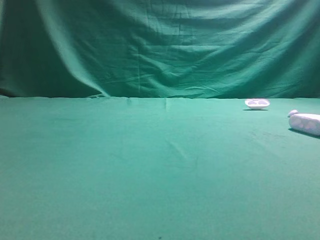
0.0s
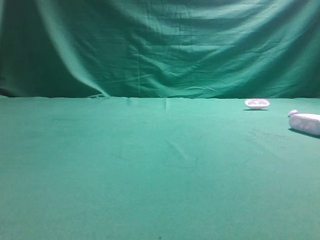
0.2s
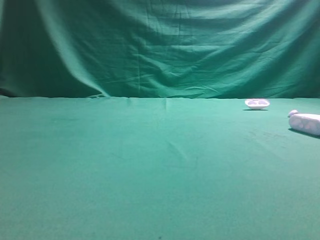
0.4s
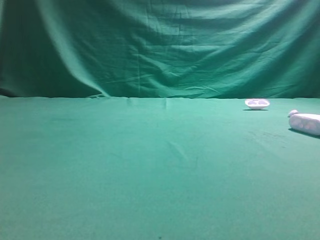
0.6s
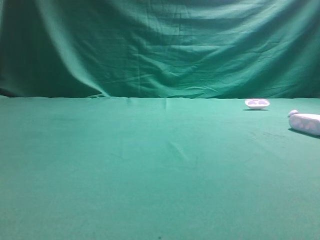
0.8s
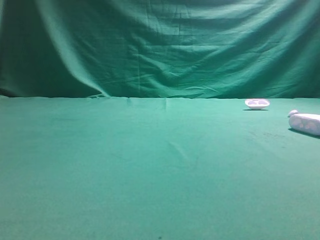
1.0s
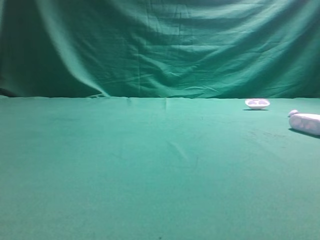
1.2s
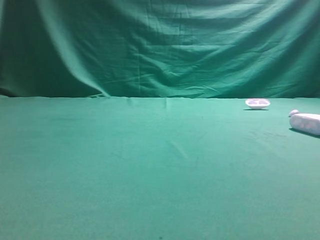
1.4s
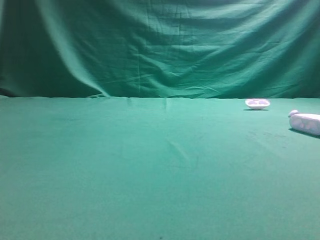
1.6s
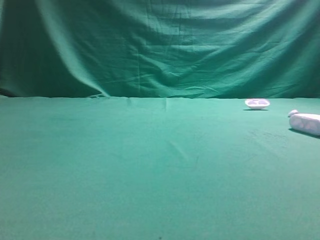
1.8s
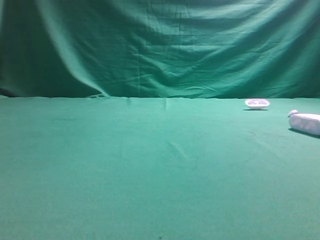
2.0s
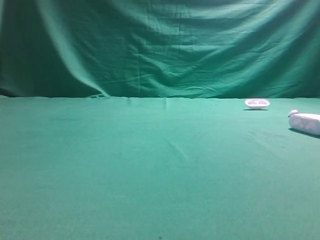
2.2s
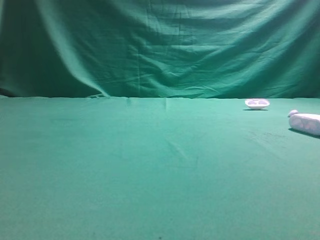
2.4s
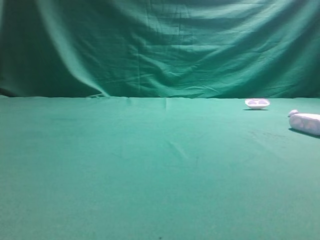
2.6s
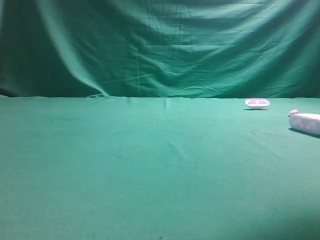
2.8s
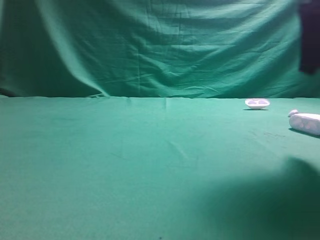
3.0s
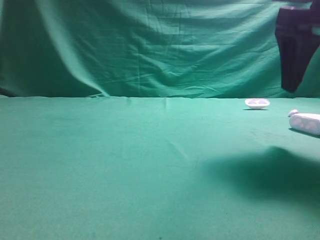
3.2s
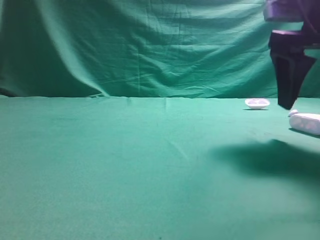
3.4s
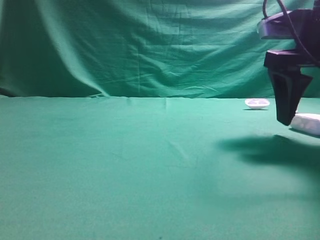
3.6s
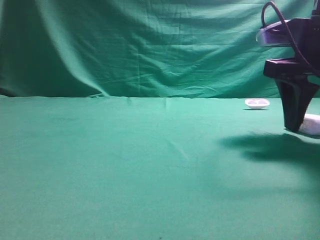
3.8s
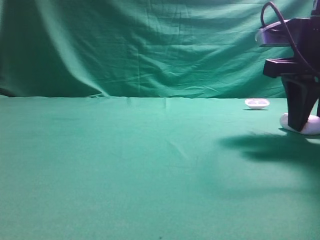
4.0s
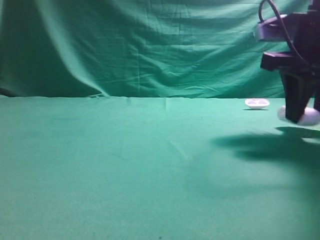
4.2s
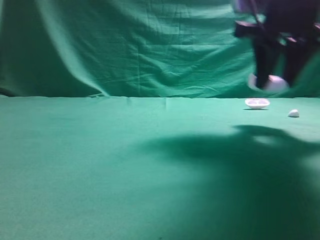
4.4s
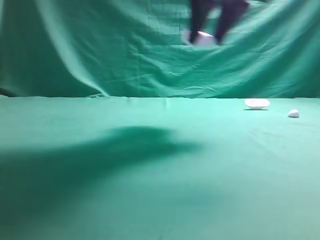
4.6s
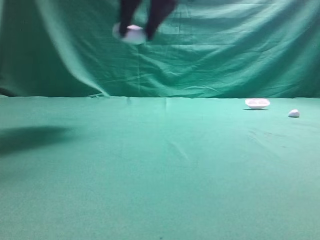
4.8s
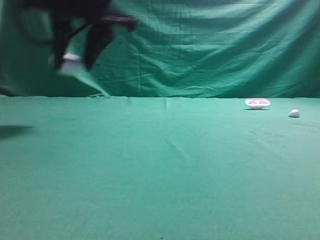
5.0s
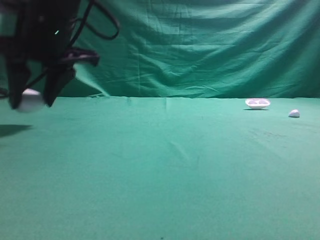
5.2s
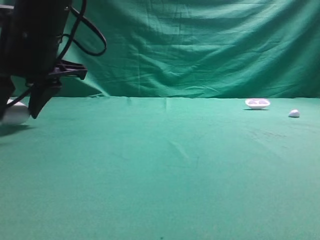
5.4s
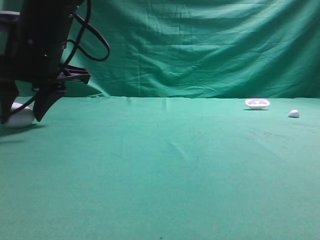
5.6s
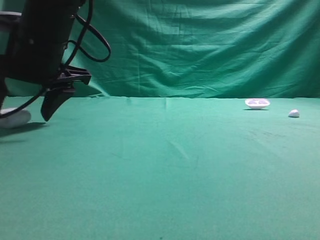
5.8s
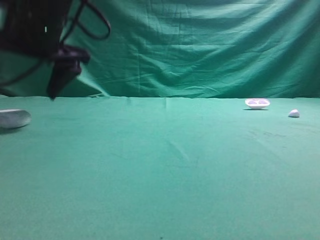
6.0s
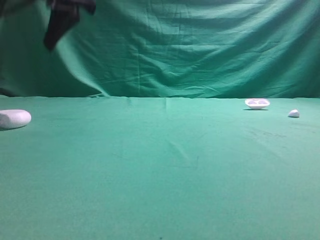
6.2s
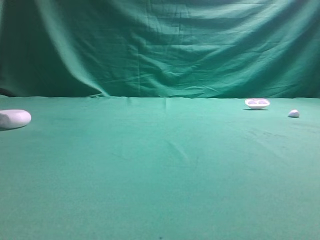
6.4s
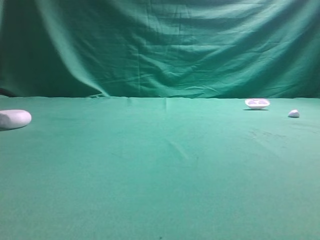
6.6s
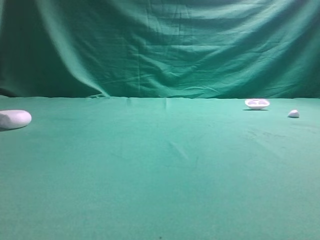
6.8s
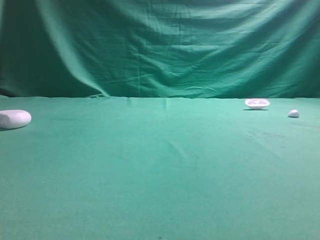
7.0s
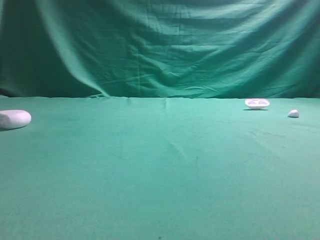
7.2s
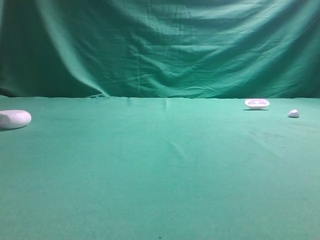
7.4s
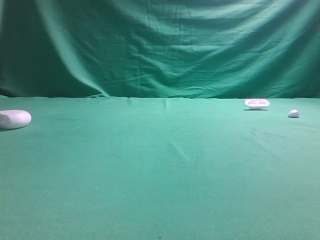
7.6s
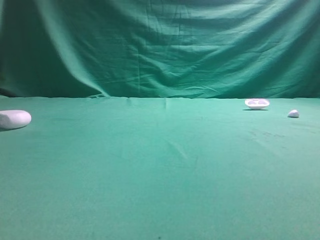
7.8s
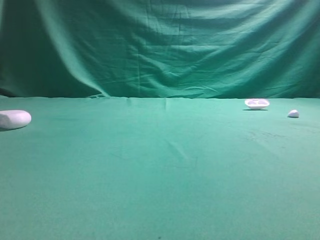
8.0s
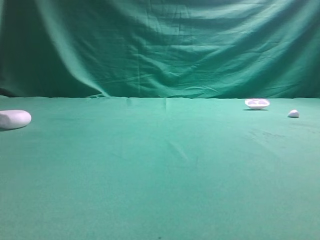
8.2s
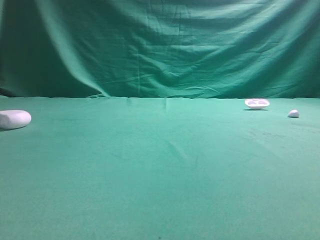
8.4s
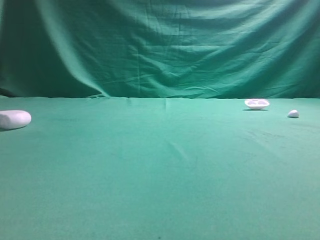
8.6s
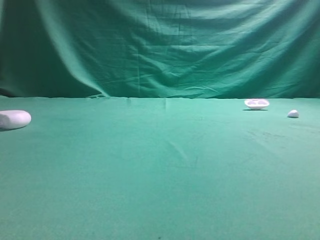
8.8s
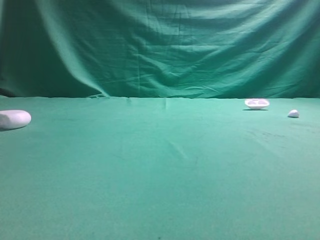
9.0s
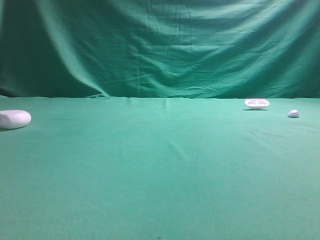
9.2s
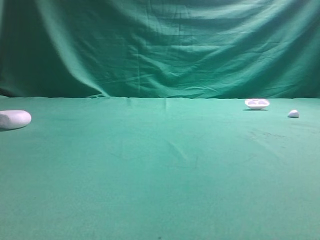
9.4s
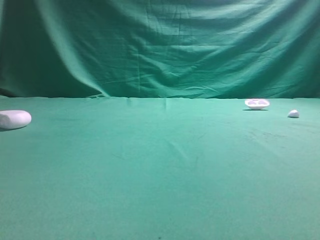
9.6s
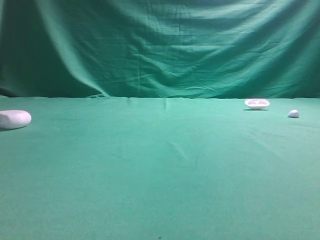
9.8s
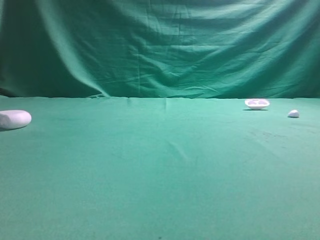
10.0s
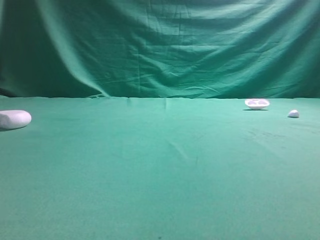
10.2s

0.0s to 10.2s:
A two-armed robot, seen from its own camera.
Step, 0.0s to 4.4s: Grasp the Bluetooth earphone case.
Step, 4.6s to 6.0s: Place bluetooth earphone case on the left side of the table.

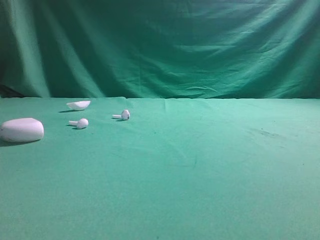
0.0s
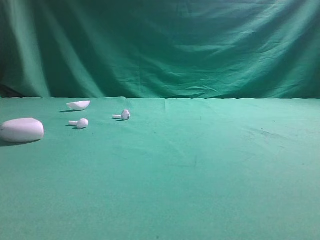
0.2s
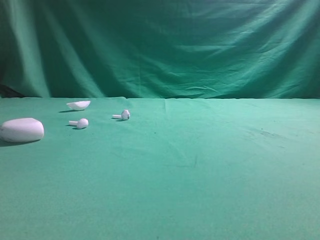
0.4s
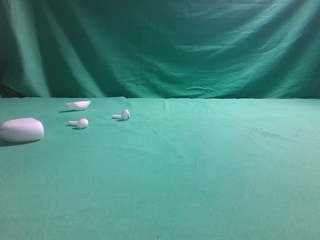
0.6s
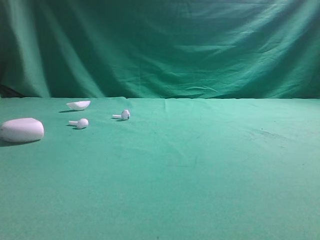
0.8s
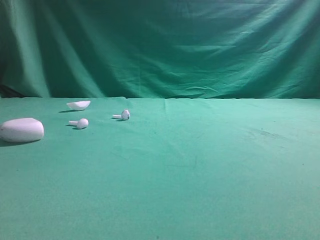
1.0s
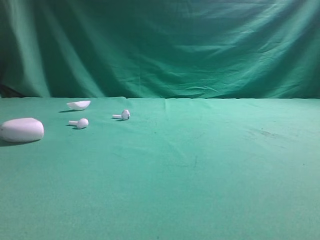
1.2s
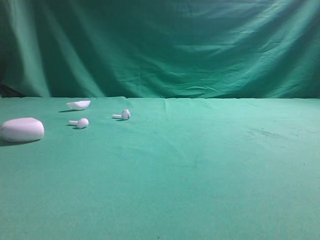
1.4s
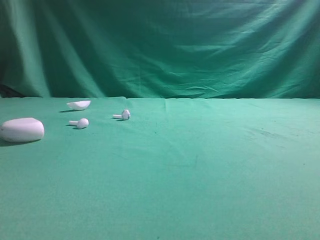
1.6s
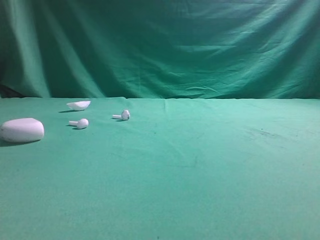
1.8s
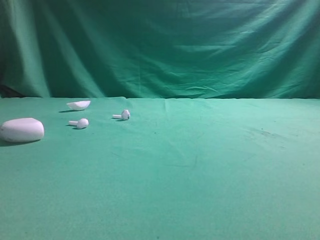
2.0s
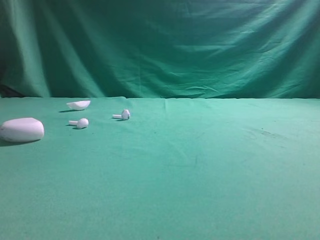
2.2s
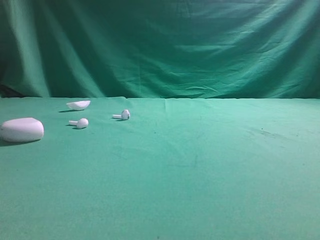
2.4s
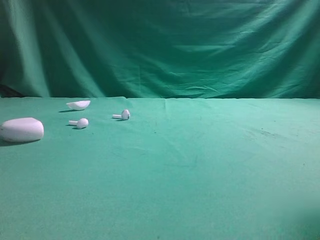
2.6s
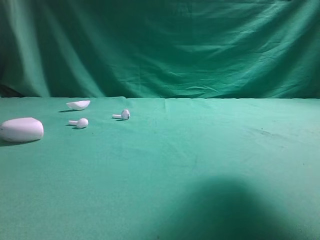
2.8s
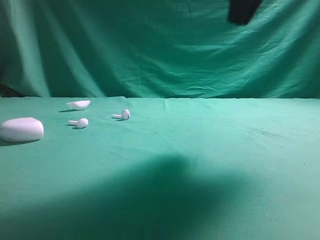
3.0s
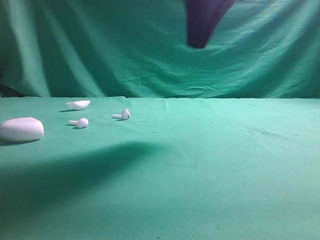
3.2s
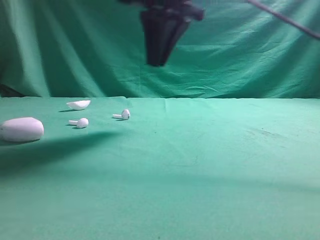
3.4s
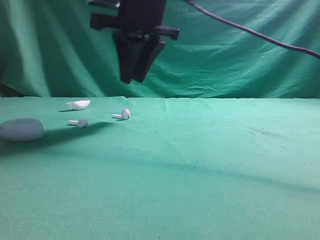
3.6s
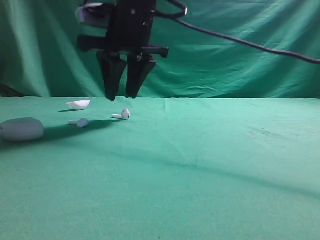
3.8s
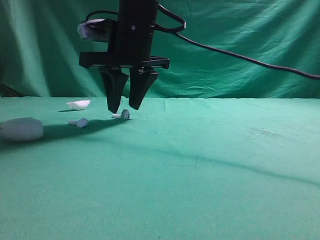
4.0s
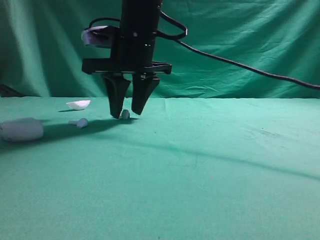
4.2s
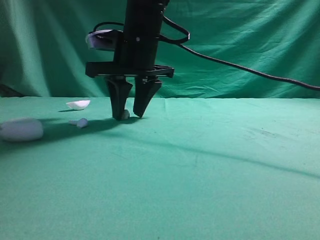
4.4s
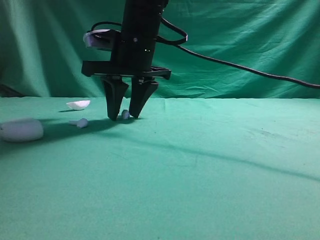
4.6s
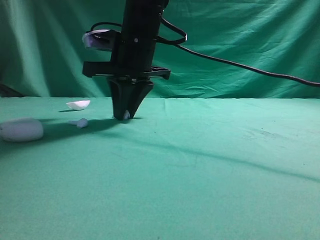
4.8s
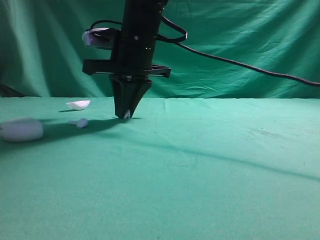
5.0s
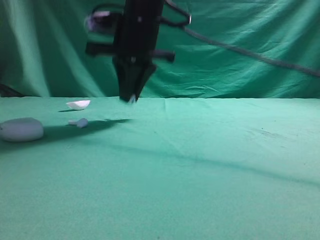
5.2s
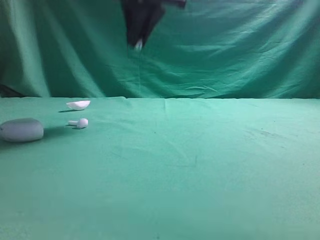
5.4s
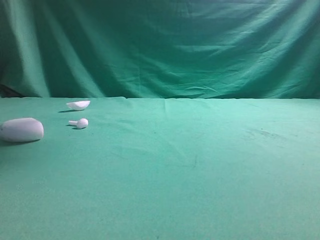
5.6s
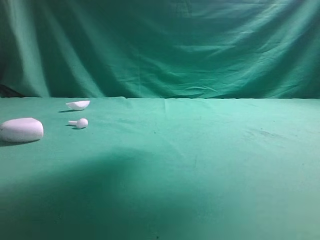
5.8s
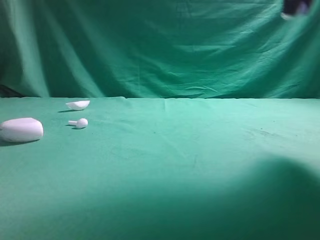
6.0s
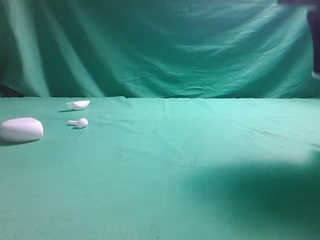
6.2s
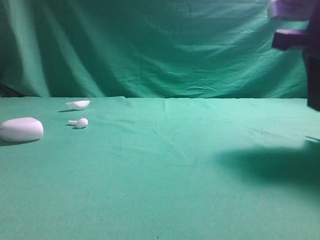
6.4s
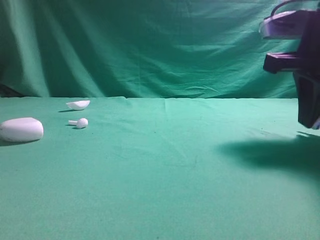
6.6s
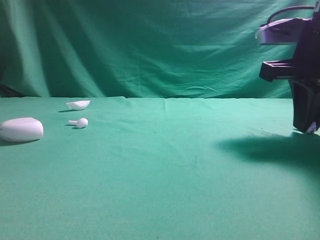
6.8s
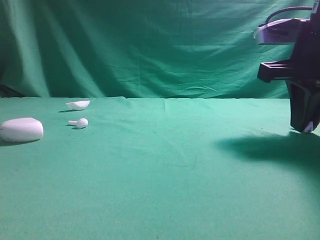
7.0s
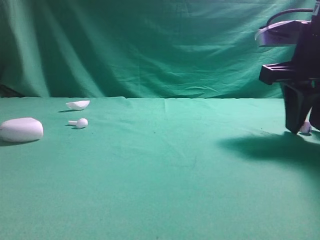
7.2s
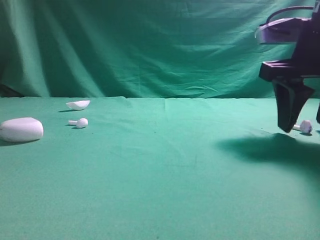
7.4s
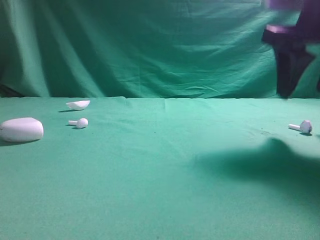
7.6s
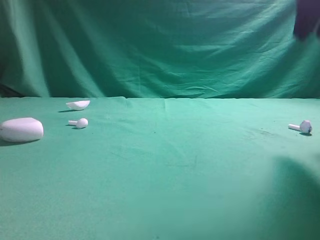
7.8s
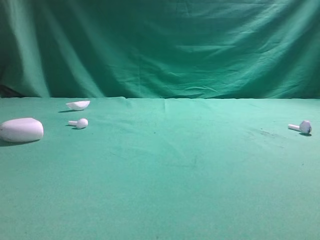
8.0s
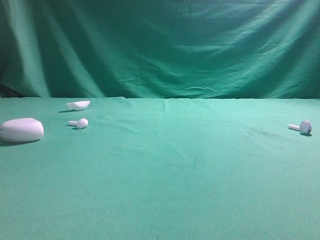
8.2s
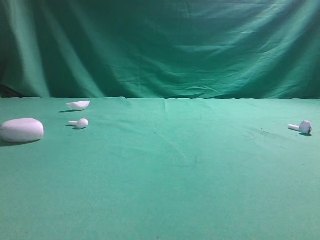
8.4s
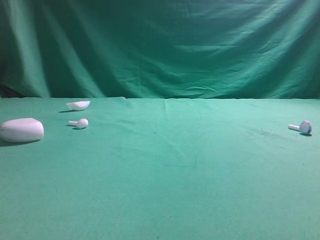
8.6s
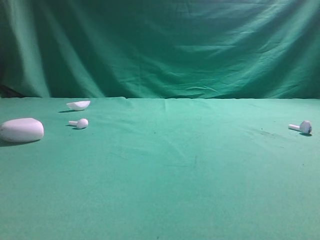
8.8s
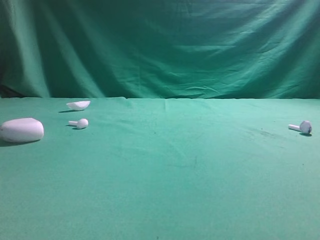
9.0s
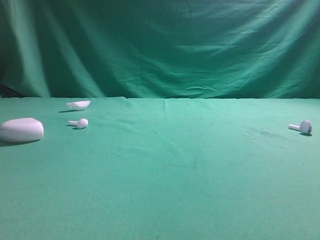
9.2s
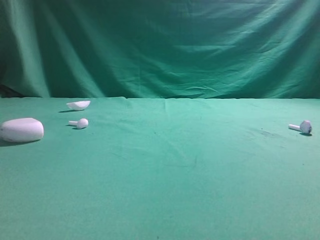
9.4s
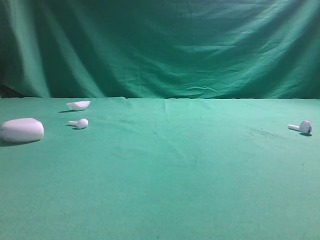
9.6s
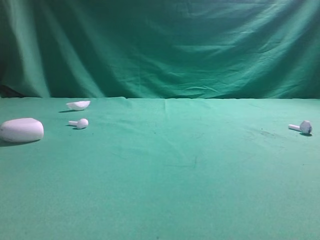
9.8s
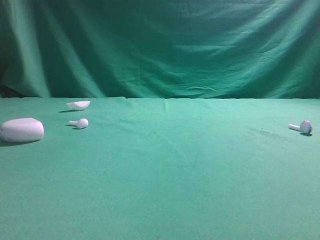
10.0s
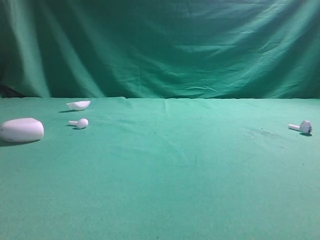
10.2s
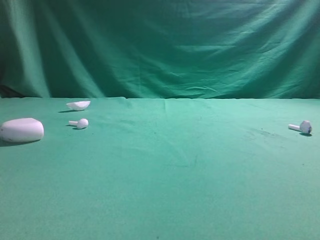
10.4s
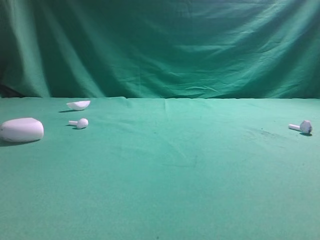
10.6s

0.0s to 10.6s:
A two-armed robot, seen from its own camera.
Step, 0.0s to 5.2s: Grasp the Bluetooth earbud.
Step, 5.4s to 7.6s: Place bluetooth earbud on the right side of the table.

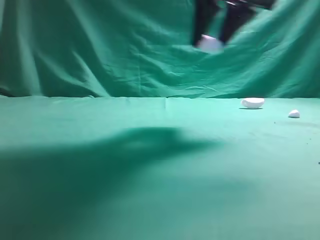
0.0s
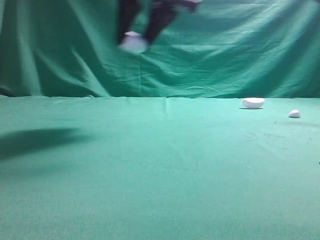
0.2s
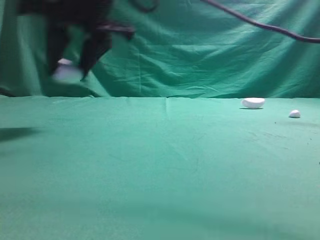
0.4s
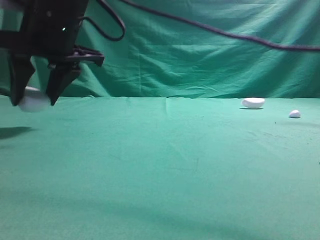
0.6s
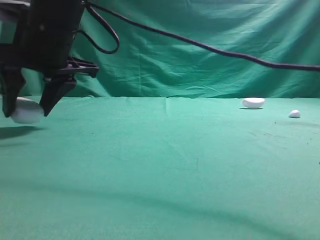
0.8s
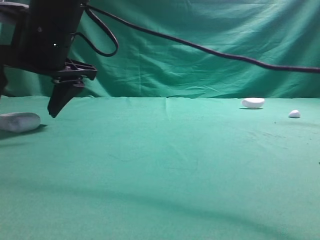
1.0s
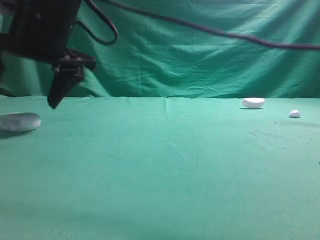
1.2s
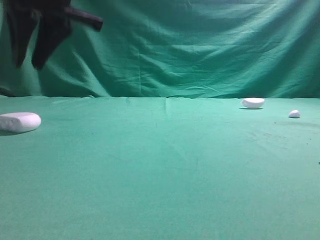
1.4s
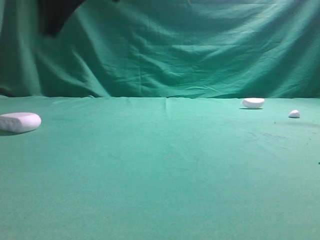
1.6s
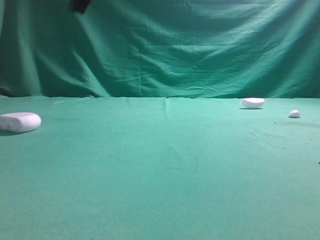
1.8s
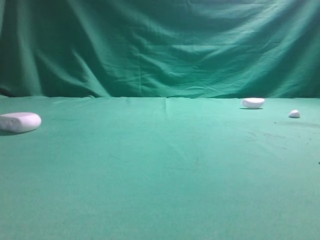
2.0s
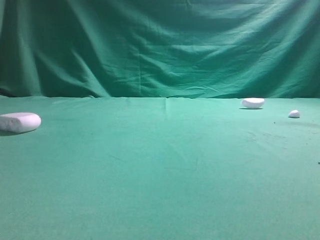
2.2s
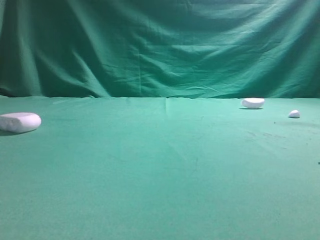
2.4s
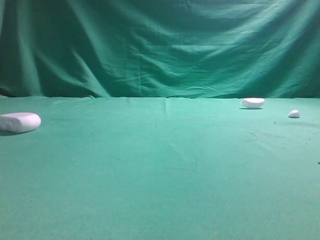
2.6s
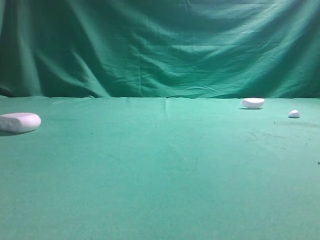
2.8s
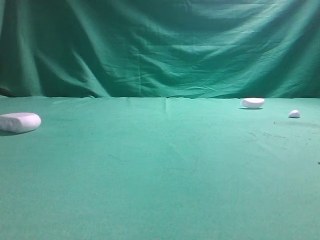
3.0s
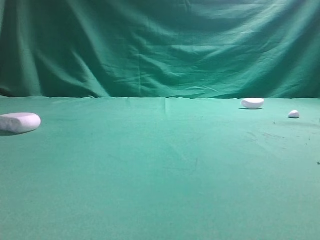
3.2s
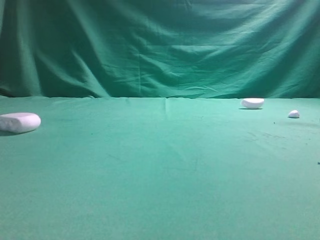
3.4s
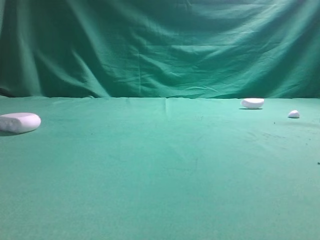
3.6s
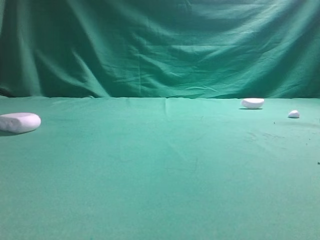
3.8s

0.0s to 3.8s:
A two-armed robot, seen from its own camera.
Step, 0.0s to 1.2s: Place bluetooth earphone case on the left side of the table.
